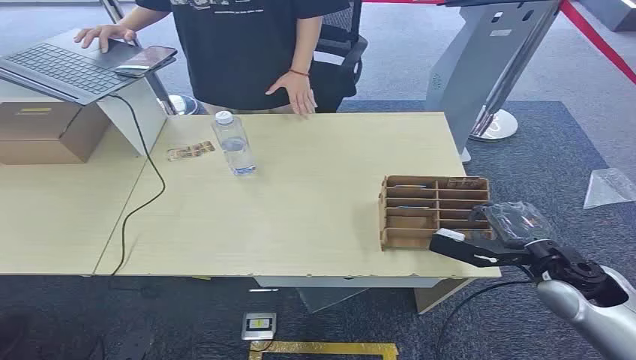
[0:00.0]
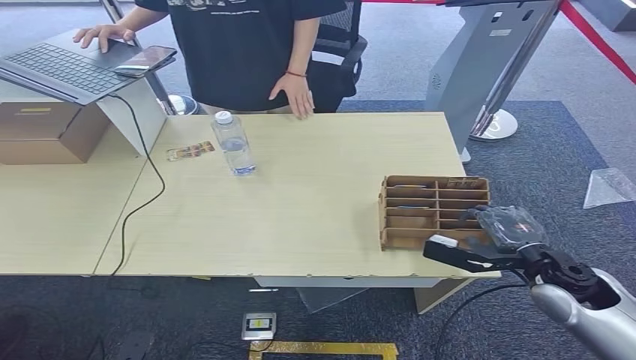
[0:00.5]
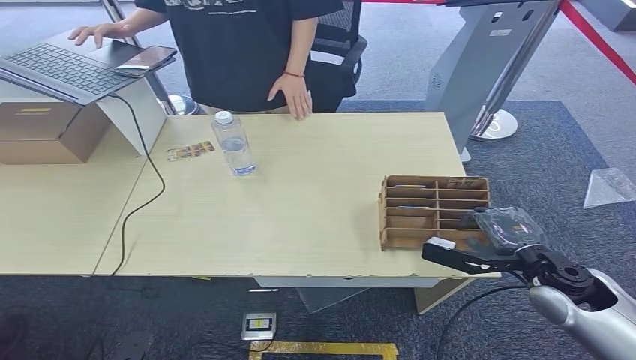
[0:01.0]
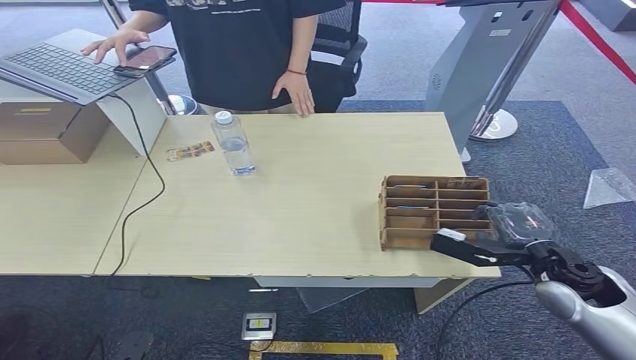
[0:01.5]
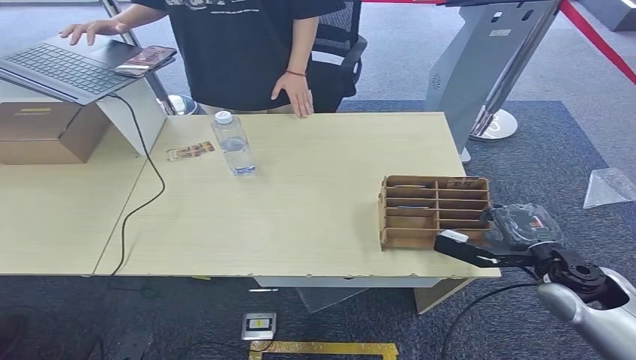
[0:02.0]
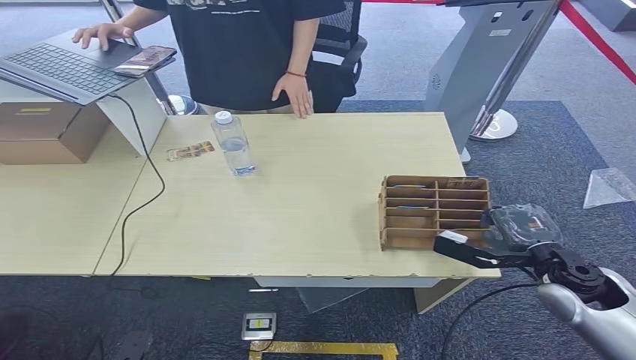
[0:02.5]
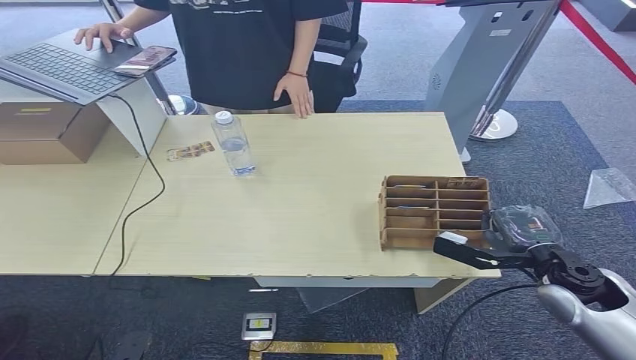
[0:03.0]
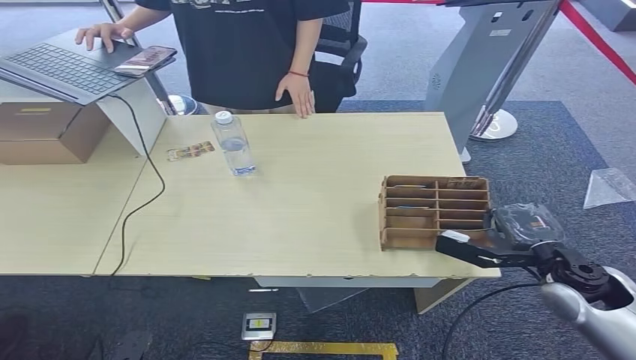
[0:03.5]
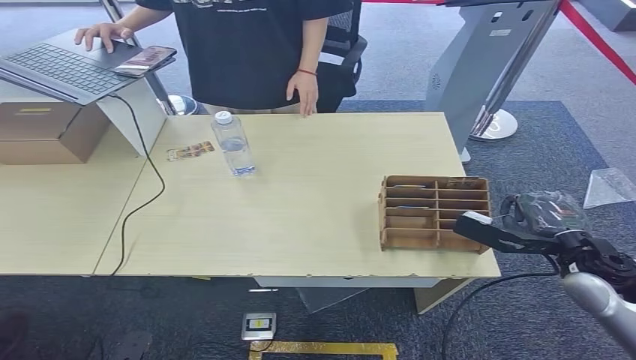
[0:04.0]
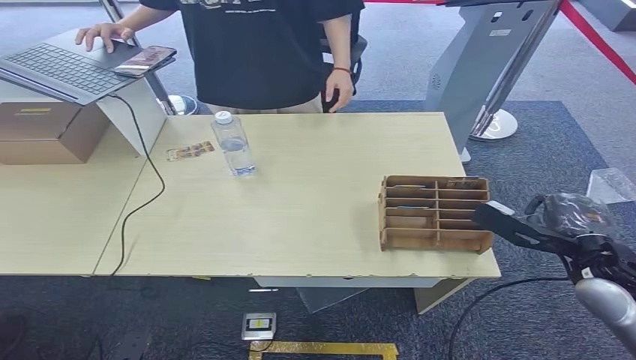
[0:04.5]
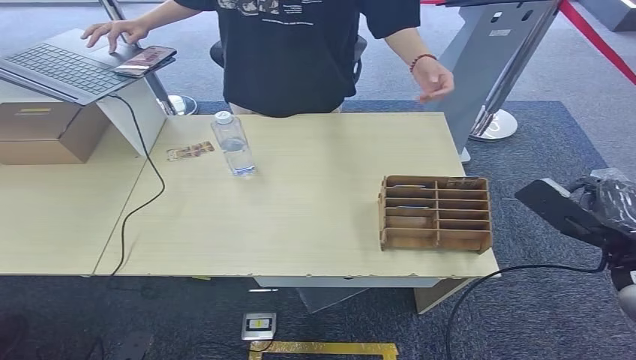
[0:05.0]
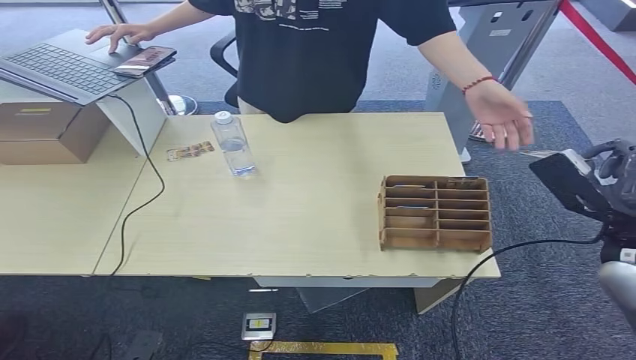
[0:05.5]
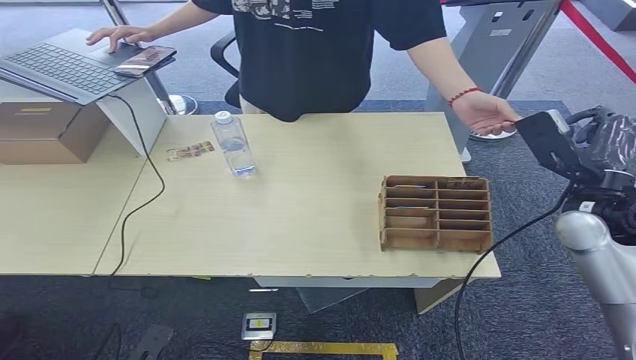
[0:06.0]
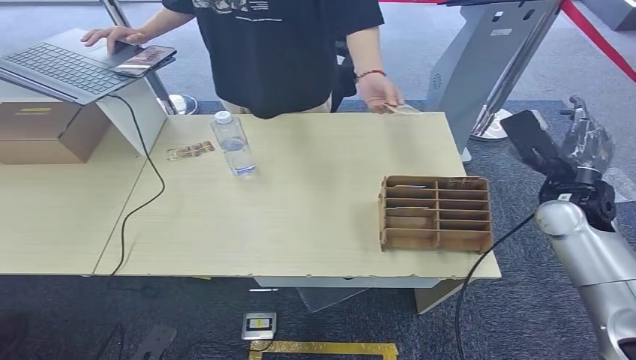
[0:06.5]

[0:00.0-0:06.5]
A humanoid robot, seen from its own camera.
Step, 0:00.0 to 0:04.5: Pick up the room card from the card holder.
Step, 0:05.0 to 0:06.5: Hand the room card to the target.
0:02.0 to 0:04.5: The right hand changes place by some 5 cm.
0:04.5 to 0:06.5: The right hand is displaced forward by roughly 10 cm.
